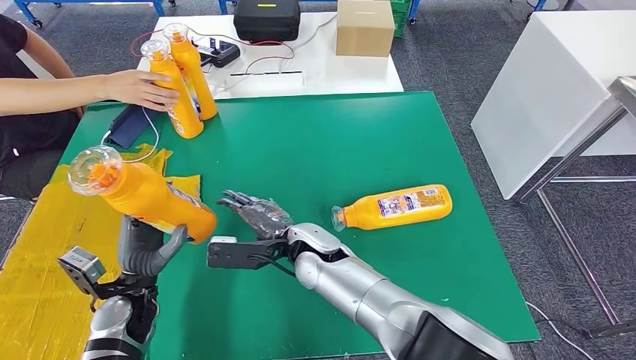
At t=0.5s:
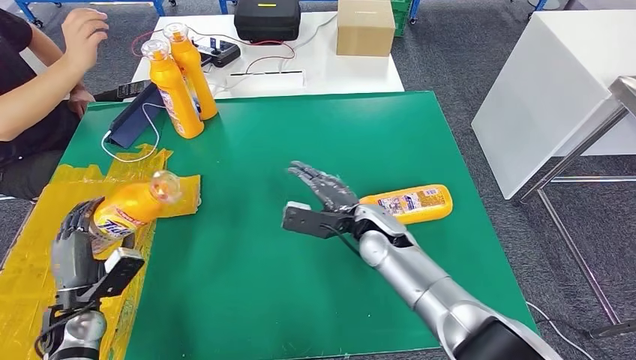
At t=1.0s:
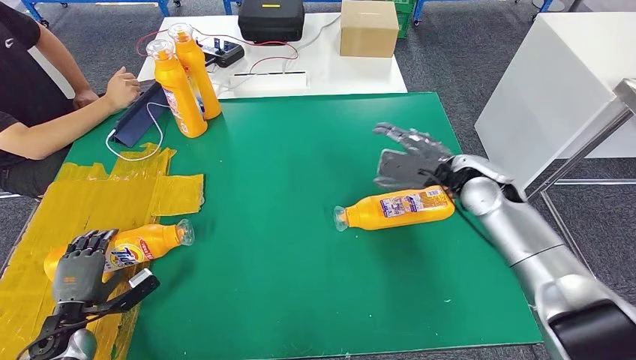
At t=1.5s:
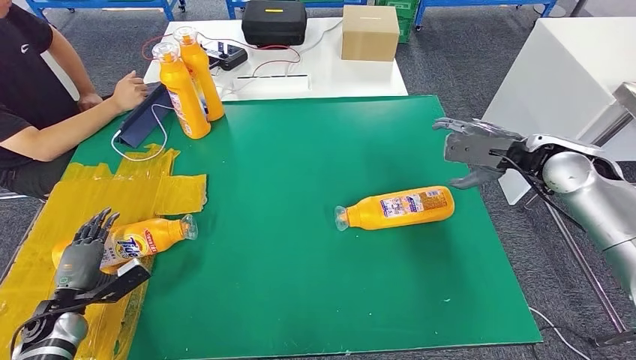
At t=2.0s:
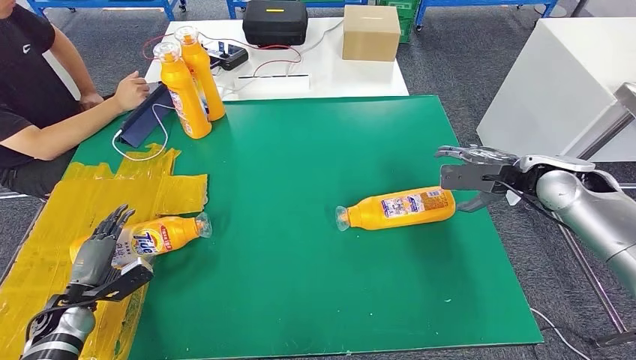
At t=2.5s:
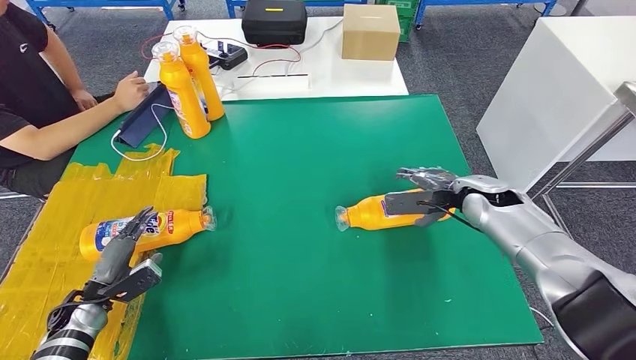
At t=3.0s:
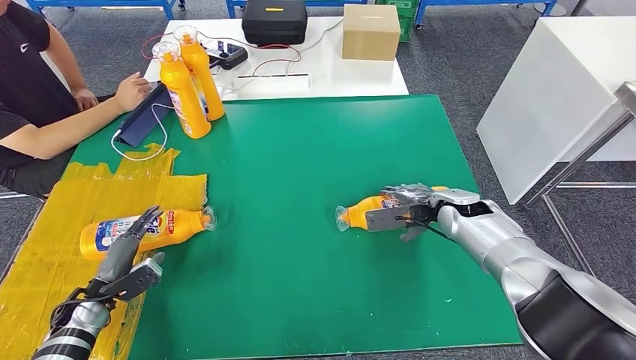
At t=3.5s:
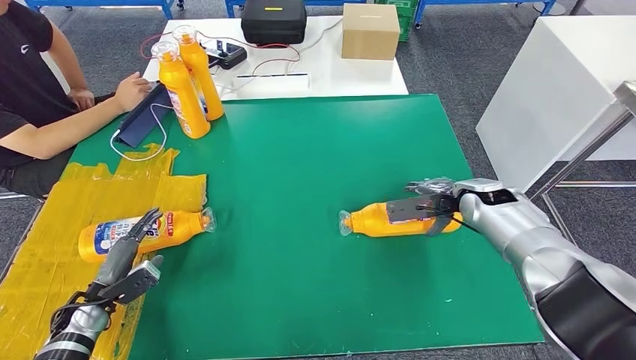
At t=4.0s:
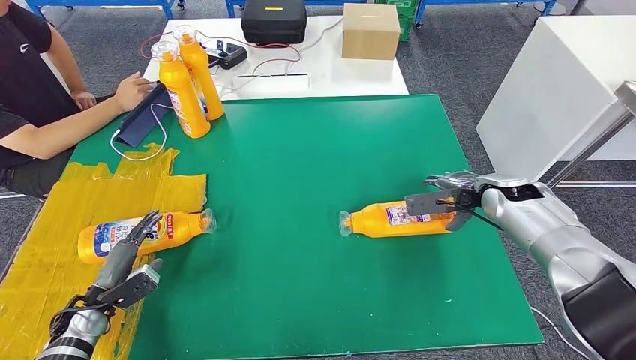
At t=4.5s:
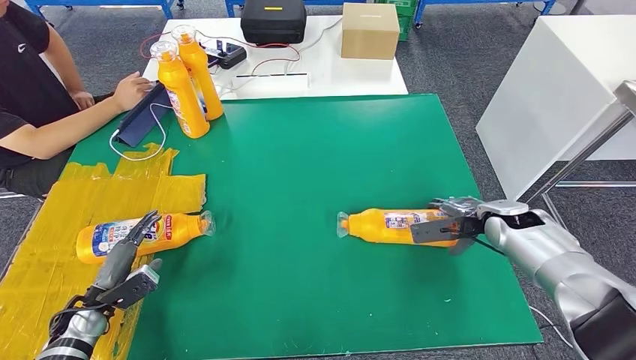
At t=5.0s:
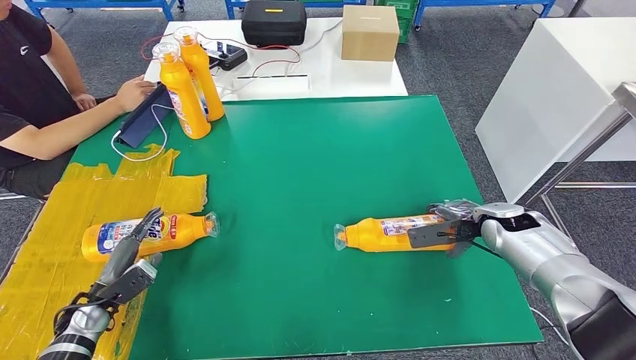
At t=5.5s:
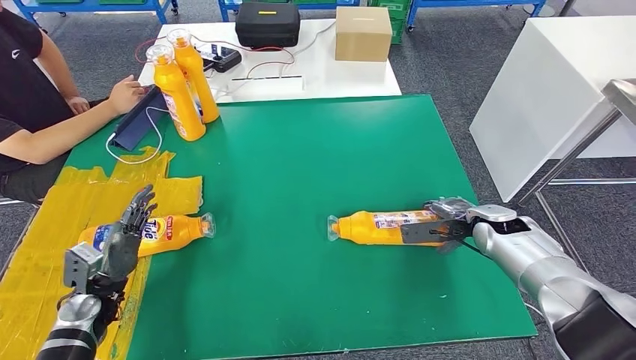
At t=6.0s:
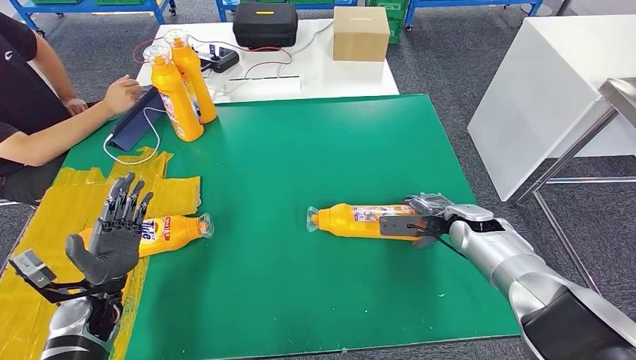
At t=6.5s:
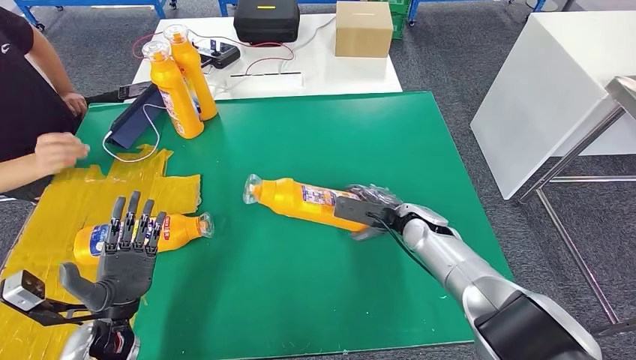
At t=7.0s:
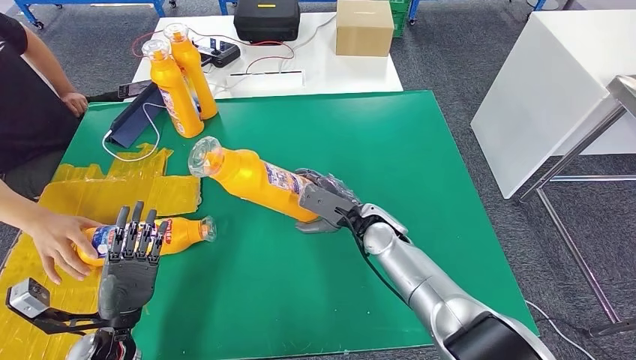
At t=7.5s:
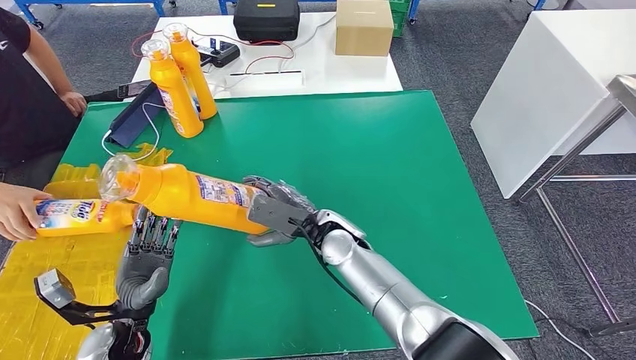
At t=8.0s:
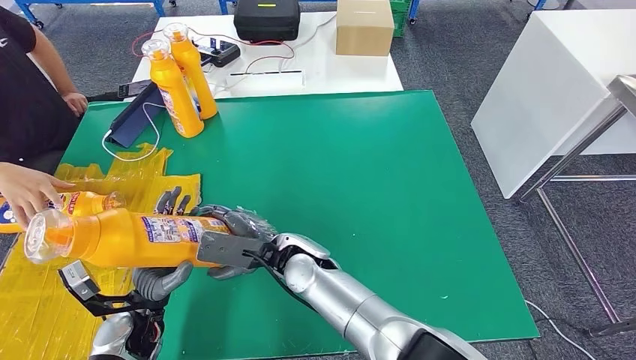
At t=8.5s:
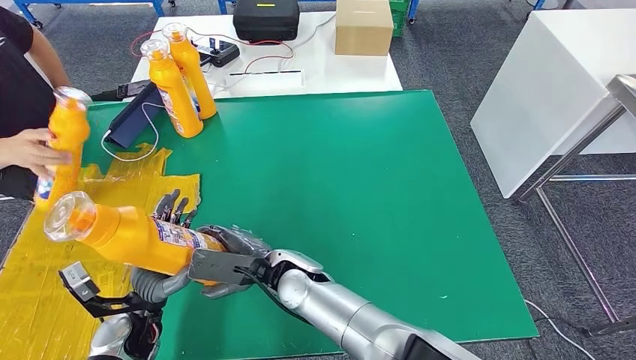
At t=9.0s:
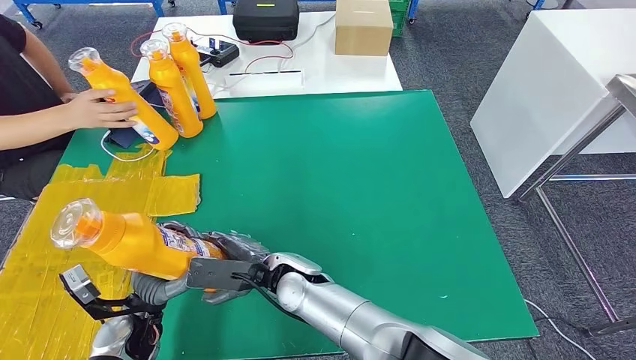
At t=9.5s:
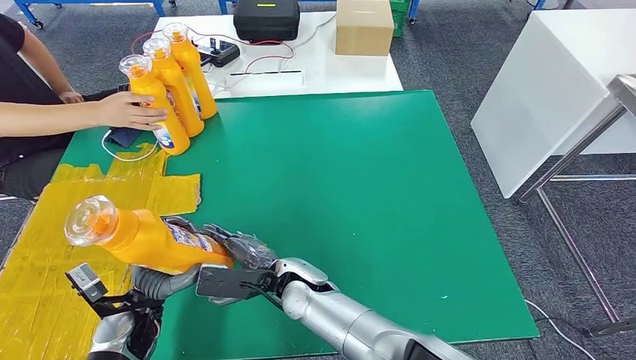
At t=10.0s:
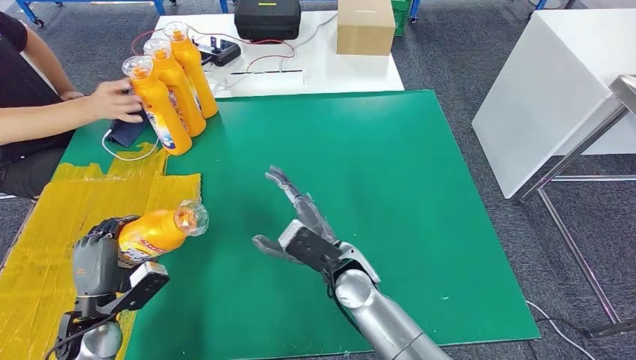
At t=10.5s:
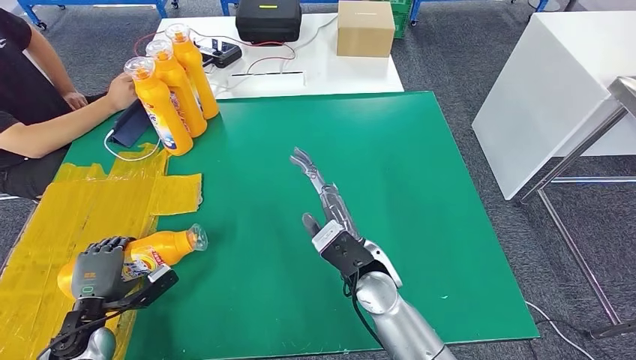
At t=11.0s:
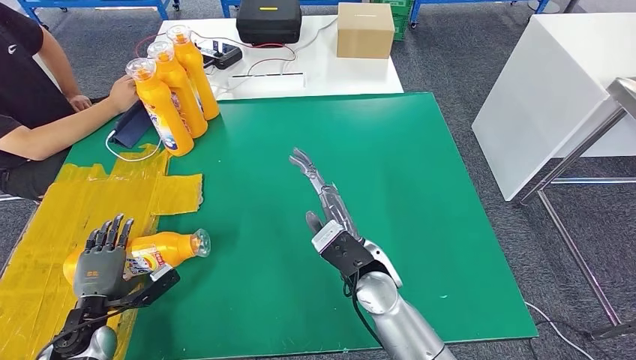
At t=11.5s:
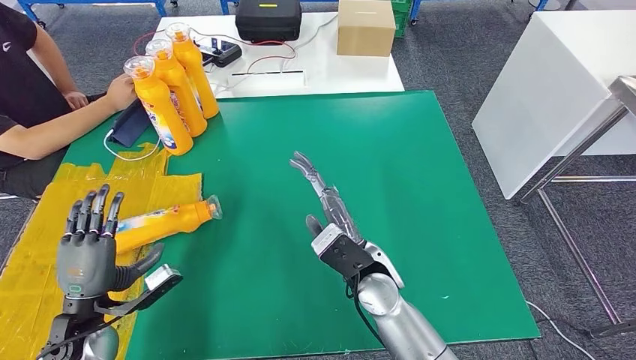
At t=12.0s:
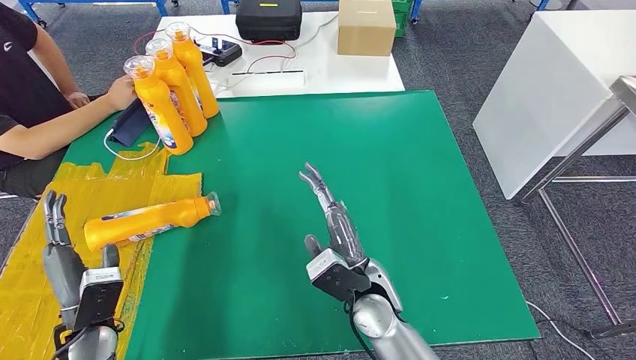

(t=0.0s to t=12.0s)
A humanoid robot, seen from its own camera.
Step, t=0.0s - t=2.0s: Flip the bottle to face forward.
Step, t=2.5s - t=6.5s: Pick up the bottle from the table.
Step, t=7.0s - t=12.0s: Flip the bottle to face forward.
t=2.0s - t=4.0s: The right hand goes approximately 10 cm downward.
